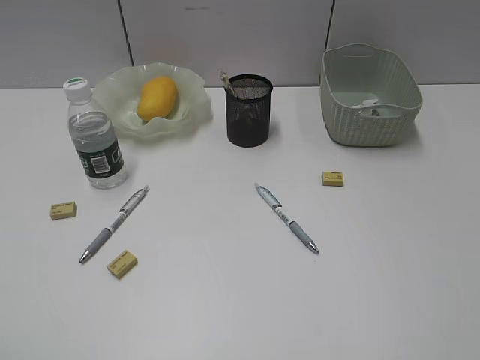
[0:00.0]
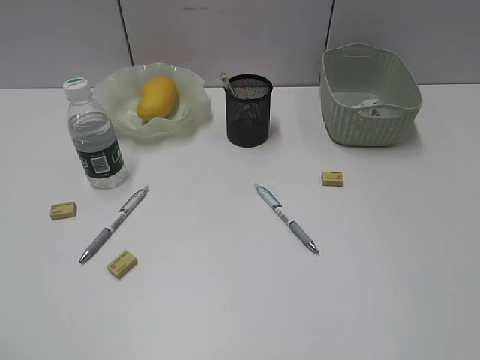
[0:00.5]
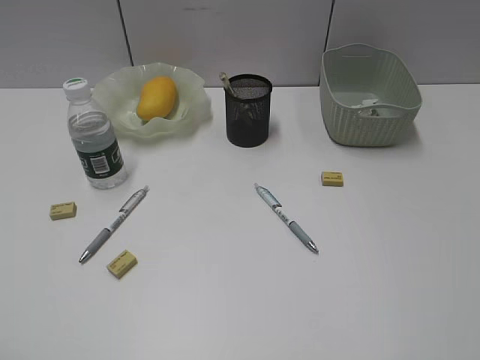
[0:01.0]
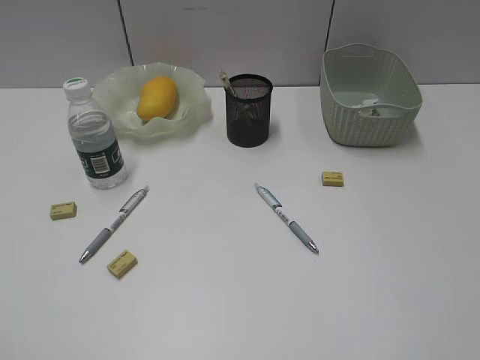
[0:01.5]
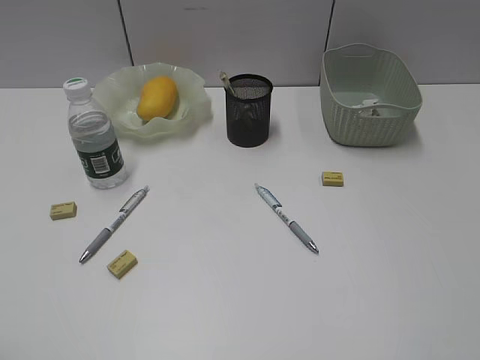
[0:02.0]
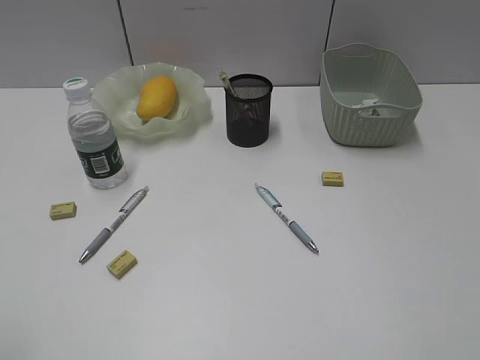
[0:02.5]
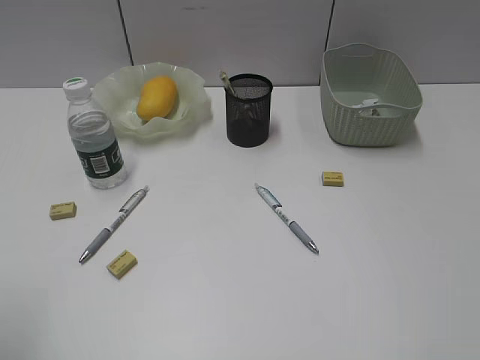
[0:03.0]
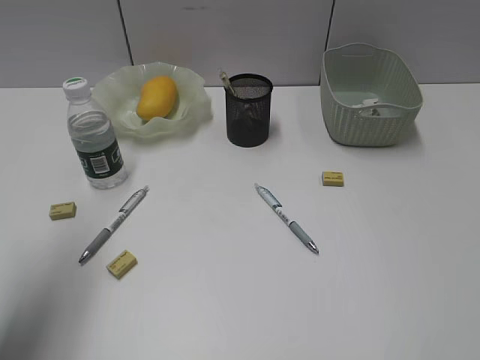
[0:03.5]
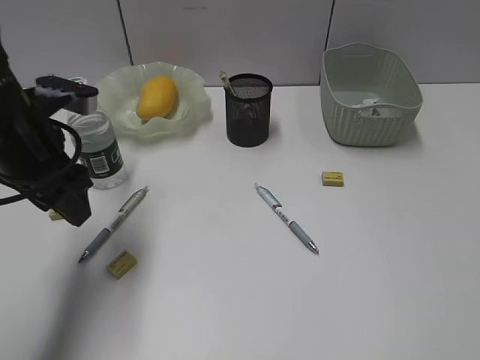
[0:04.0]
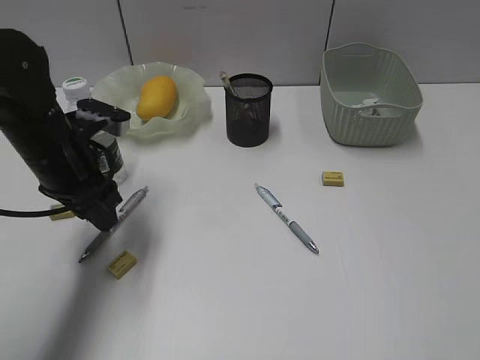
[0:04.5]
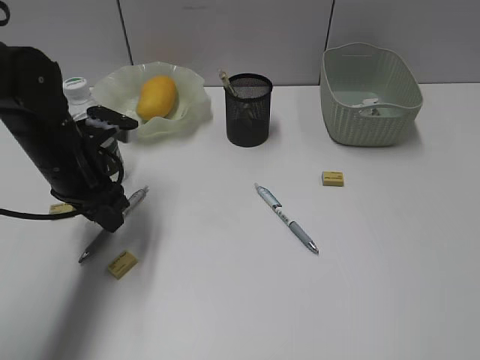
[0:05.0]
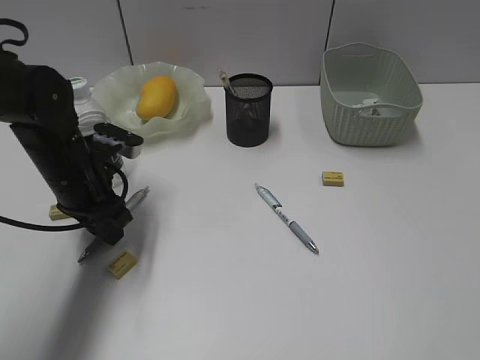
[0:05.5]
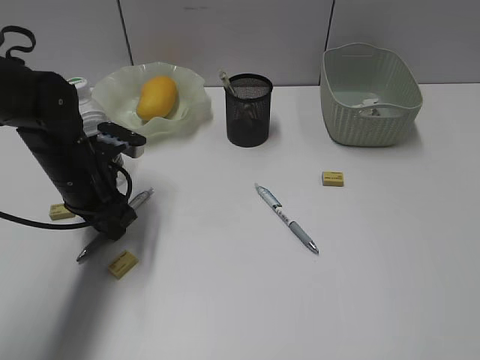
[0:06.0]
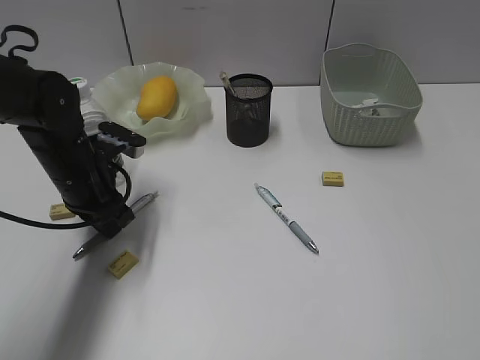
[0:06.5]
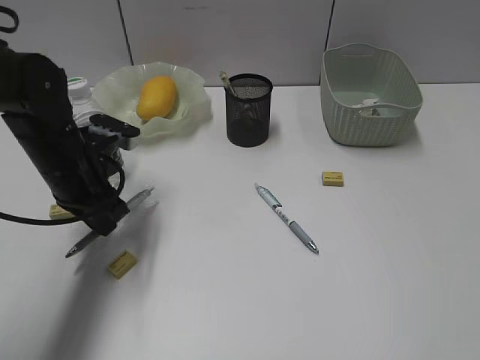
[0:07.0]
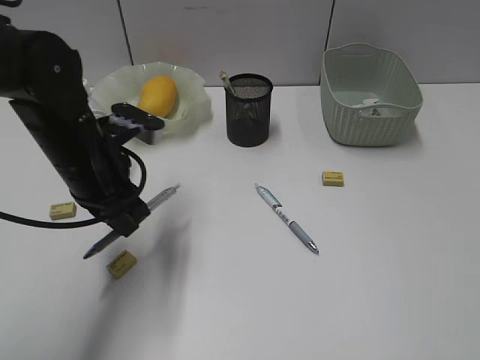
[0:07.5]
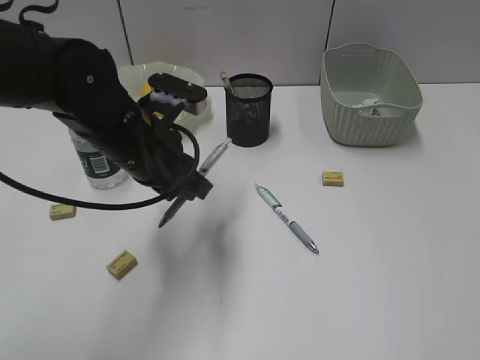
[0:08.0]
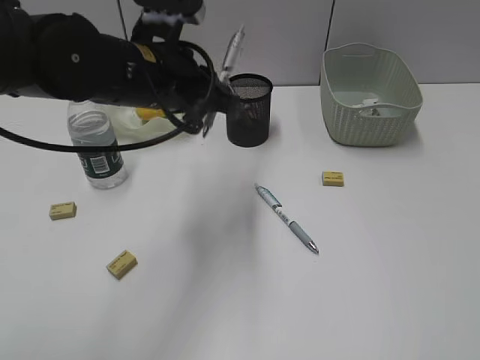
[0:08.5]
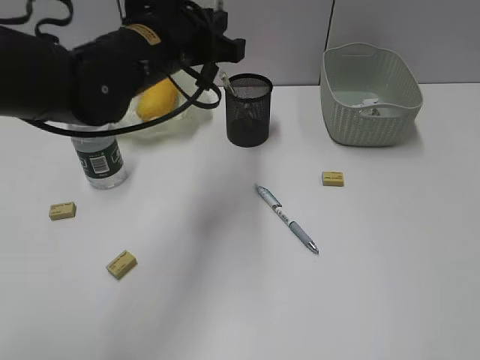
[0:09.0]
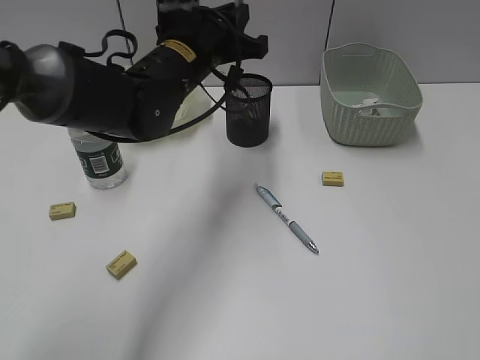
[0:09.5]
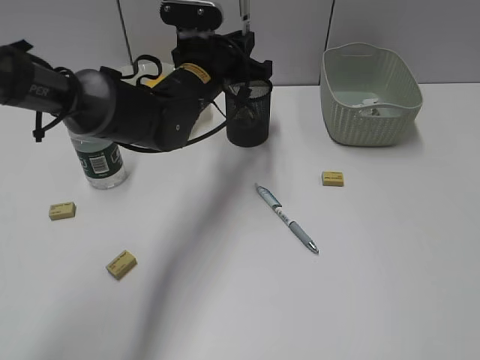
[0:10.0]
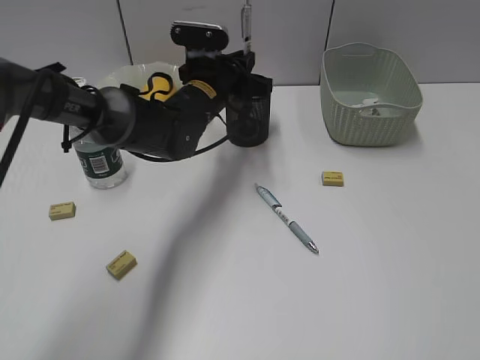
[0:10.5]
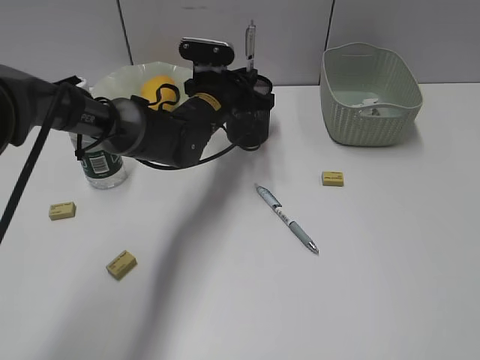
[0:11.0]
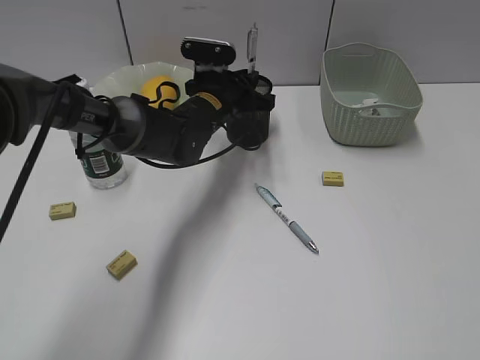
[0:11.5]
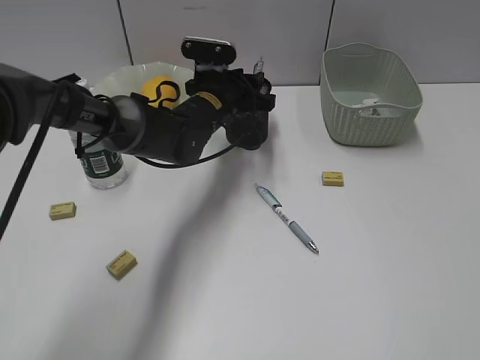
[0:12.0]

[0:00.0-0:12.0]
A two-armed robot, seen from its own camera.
Step, 0:00.0 to 0:06.5: Grasp the gray pen with left gripper.
0:02.0 to 0:04.0: The left gripper shifts approximately 30 cm forward.
0:04.0 to 0:06.0: The left gripper moves downward, approximately 10 cm, and closes up.
0:06.0 to 0:08.0: The left gripper is displaced to the right and upward by approximately 10 cm.
0:08.0 to 0:10.0: The left gripper moves forward and to the right, roughly 15 cm.
0:10.0 to 0:12.0: The left gripper heads downward, covering roughly 5 cm, and opens.

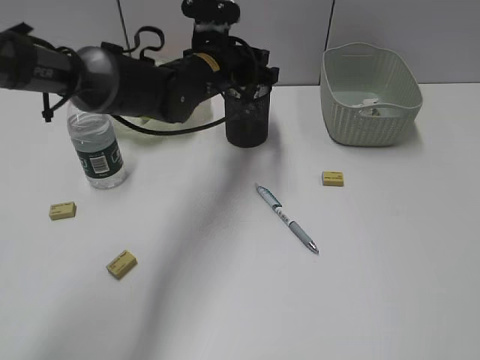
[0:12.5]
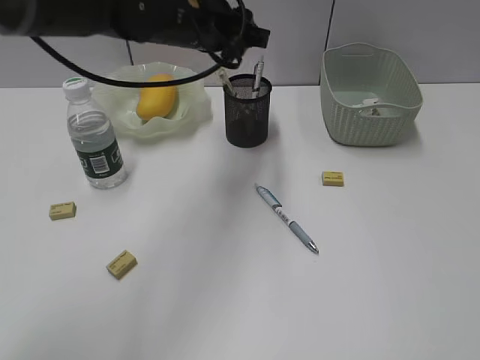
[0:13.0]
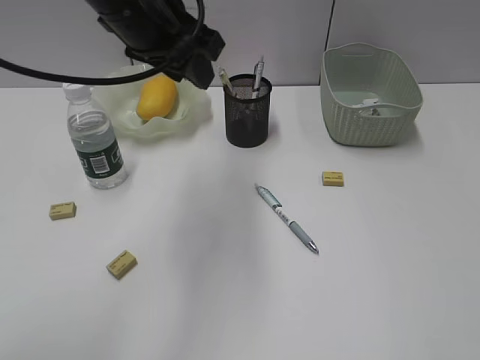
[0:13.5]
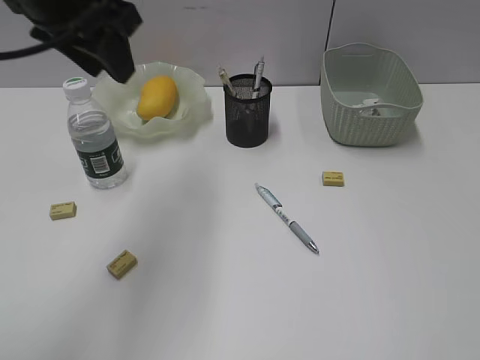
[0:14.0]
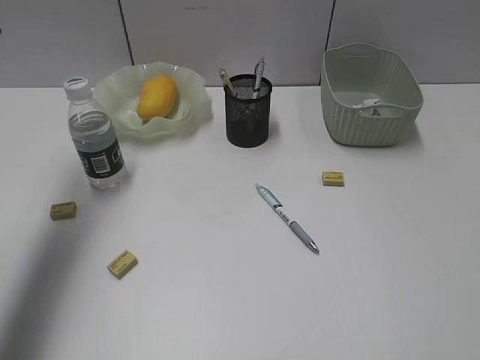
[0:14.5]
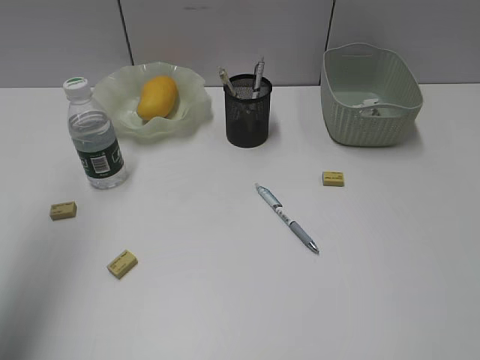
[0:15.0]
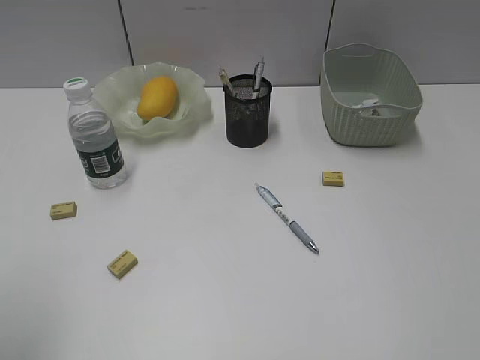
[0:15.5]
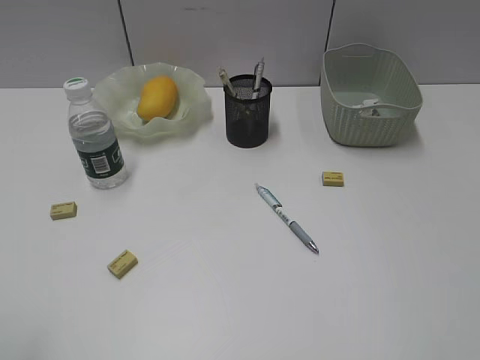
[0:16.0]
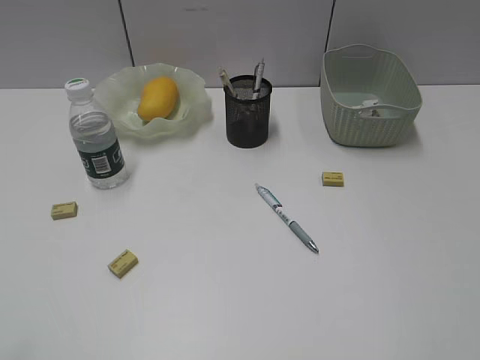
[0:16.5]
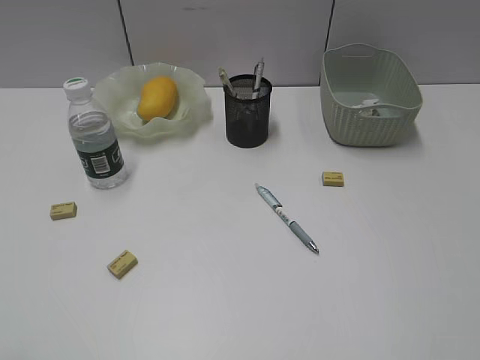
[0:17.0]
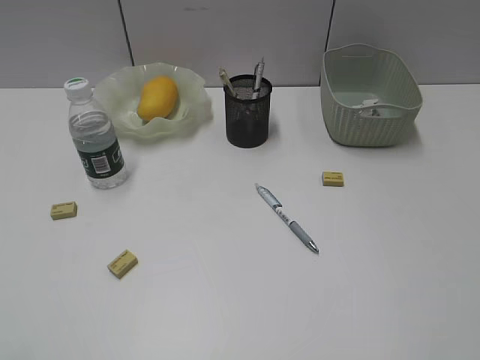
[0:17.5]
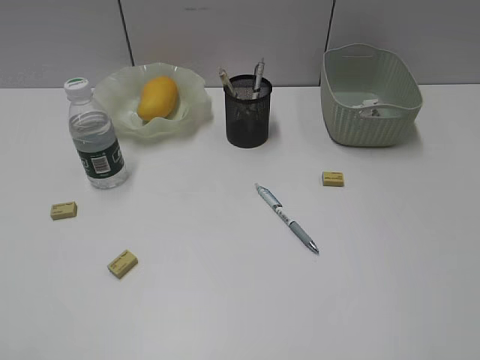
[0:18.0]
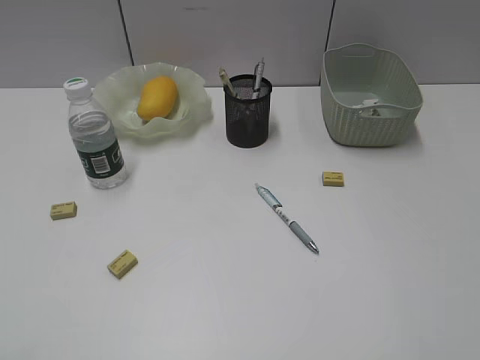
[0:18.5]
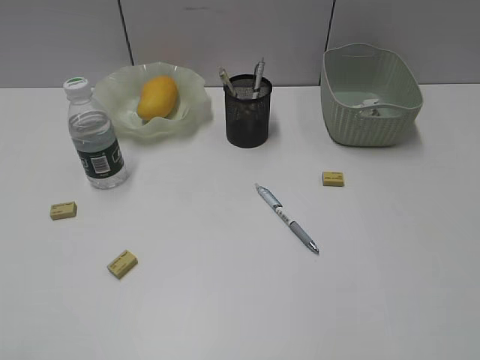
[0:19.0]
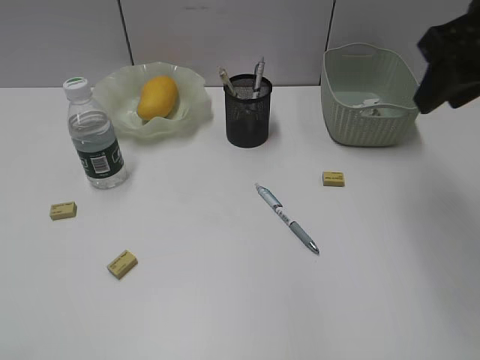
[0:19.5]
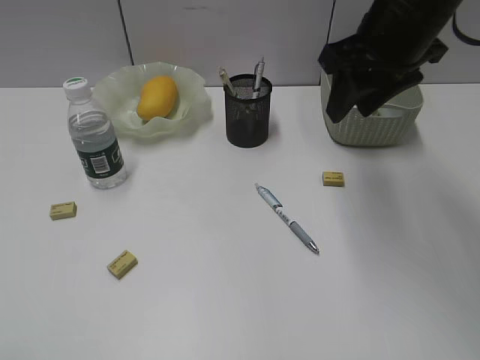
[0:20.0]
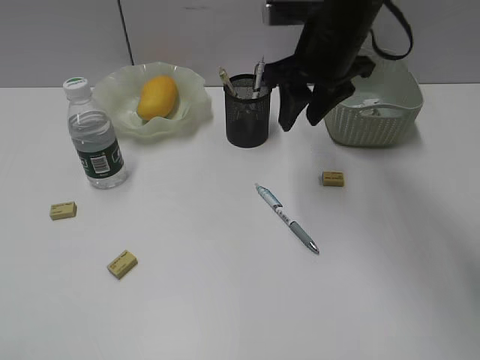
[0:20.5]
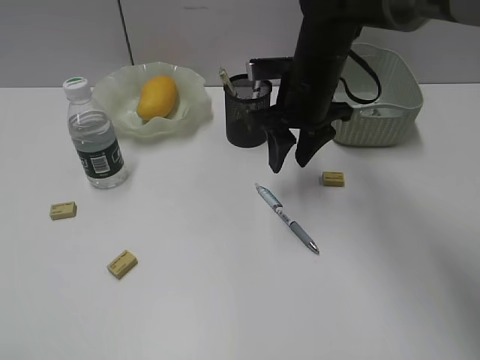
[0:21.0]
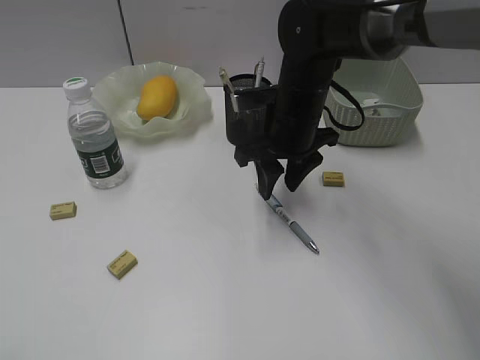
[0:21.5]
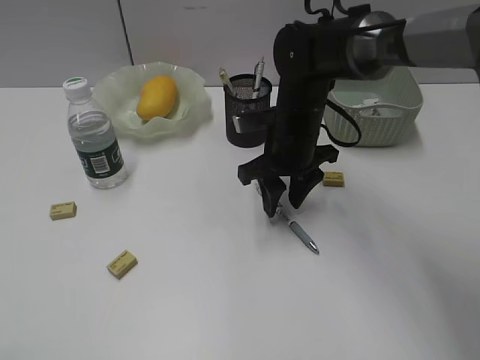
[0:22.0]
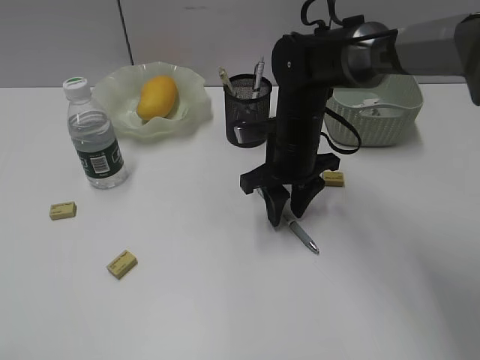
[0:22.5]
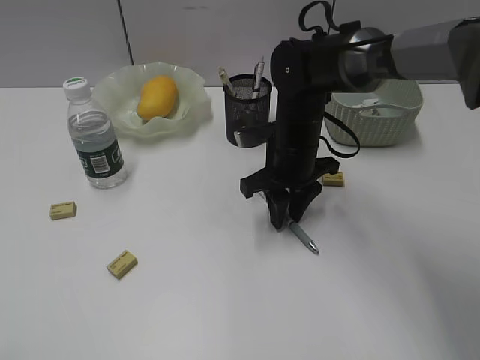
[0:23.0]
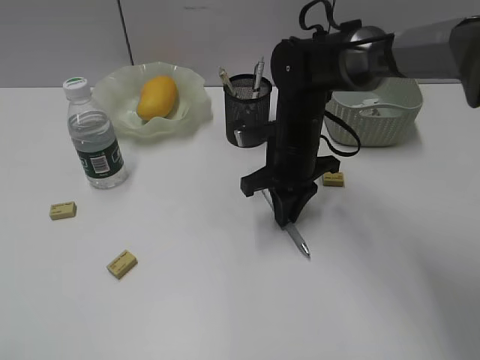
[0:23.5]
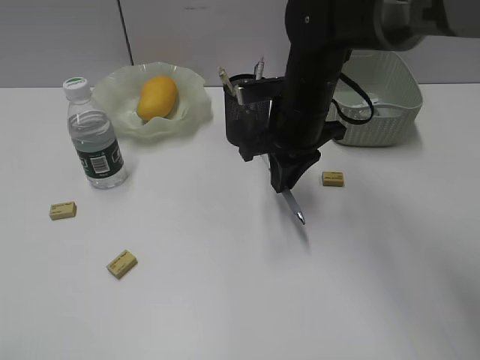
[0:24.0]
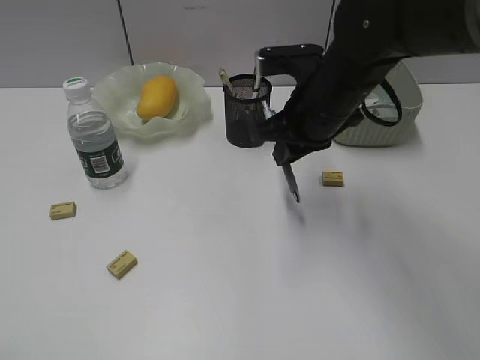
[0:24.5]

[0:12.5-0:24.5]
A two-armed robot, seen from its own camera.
Step, 0:13.0 to 0:23.0: Grasp the blue pen with right gripper.
0:12.5 to 0:14.5: The left gripper goes about 30 cm to the left and upward.
0:14.5 to 0:16.5: The left gripper heads backward, covering roughly 35 cm, and opens.
0:18.5 to 0:20.5: The right gripper shifts roughly 40 cm forward and to the left.
0:20.5 to 0:22.5: The right gripper heads downward, covering about 15 cm.
0:22.5 to 0:24.5: The right gripper goes some 10 cm upward, and closes up.

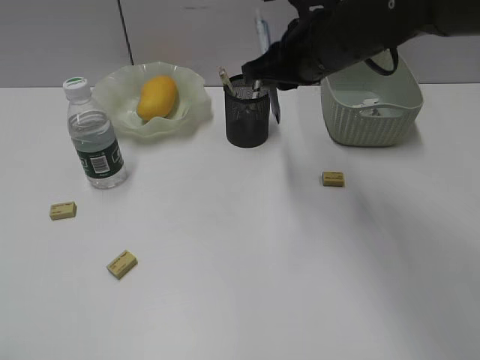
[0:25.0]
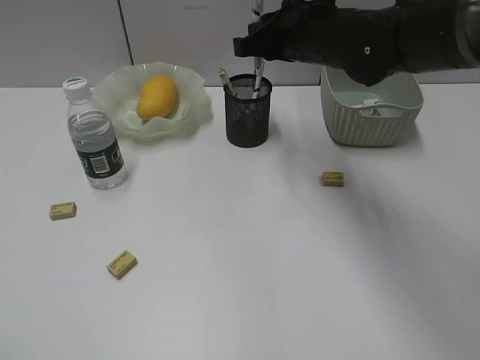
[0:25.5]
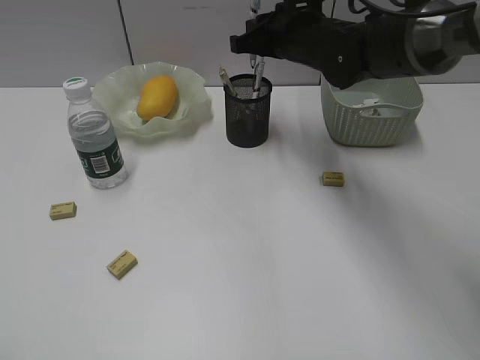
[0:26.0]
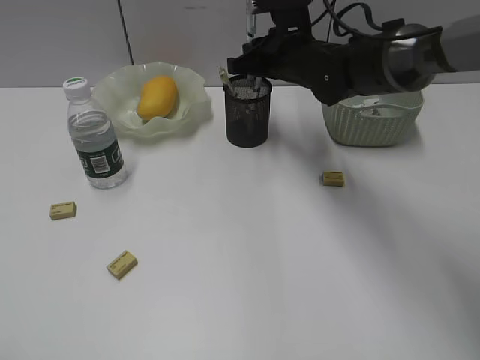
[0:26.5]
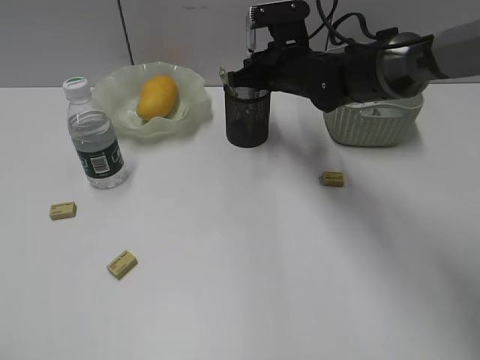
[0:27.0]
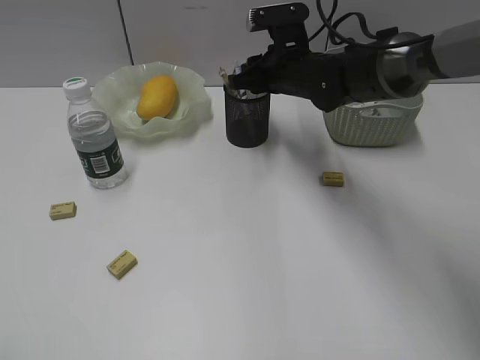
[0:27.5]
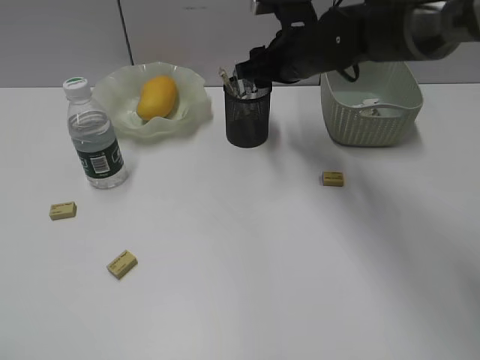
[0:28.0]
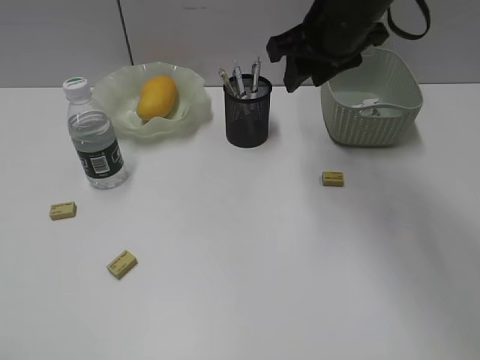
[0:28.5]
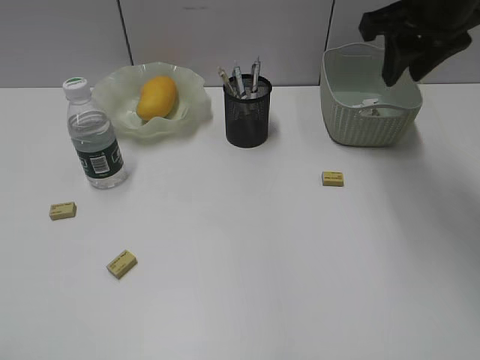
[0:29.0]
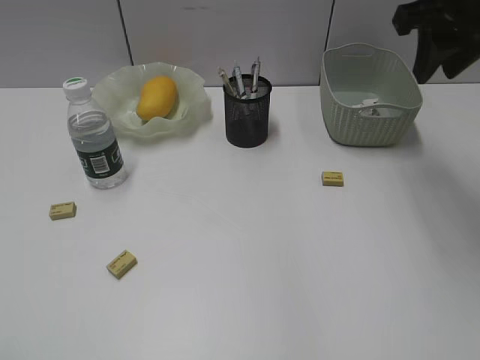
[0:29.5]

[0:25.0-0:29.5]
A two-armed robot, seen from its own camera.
Step, 0:25.0 to 0:28.0: Place the blue pen in pen holder with right gripper.
0:25.0 to 0:27.0: The right gripper shifts roughly 15 cm forward and downward.
0:27.0 to 0:29.5: The right gripper travels upward, to the right and backward by roughly 25 cm, and opens.
